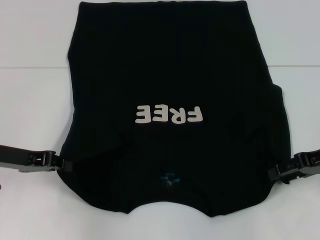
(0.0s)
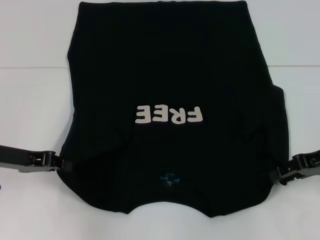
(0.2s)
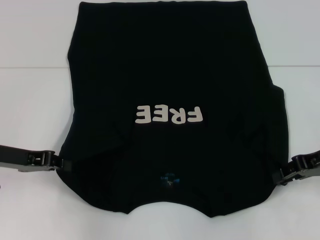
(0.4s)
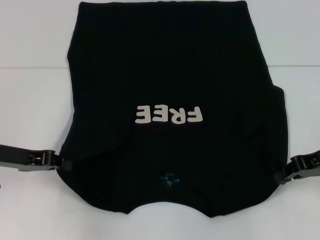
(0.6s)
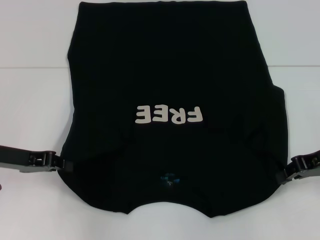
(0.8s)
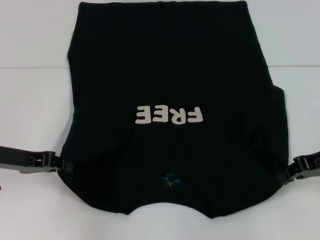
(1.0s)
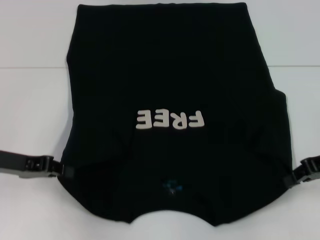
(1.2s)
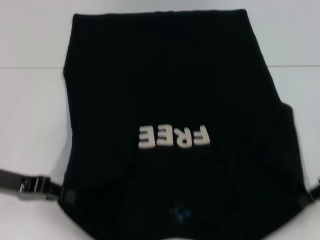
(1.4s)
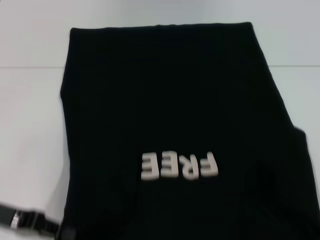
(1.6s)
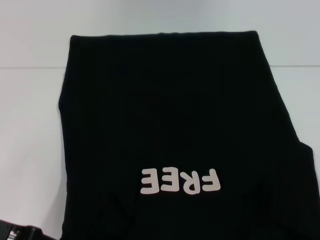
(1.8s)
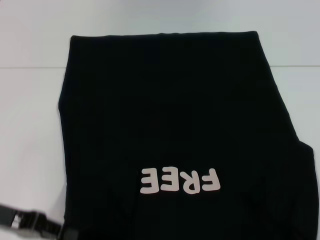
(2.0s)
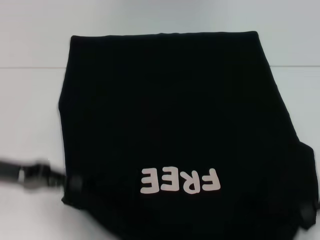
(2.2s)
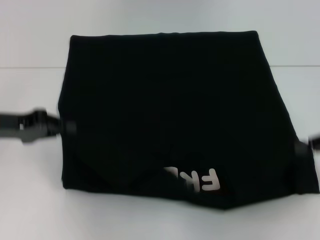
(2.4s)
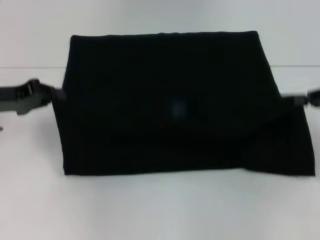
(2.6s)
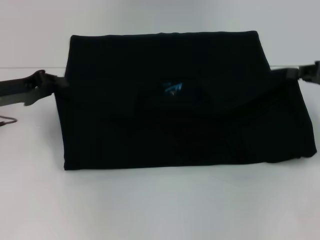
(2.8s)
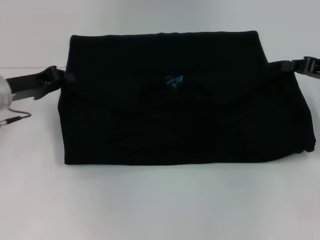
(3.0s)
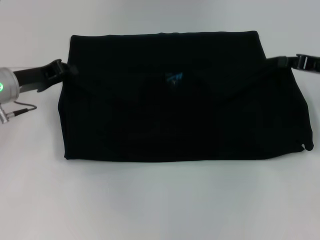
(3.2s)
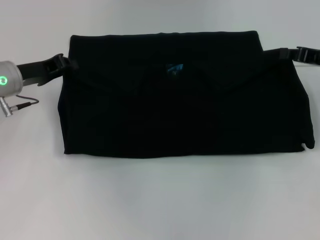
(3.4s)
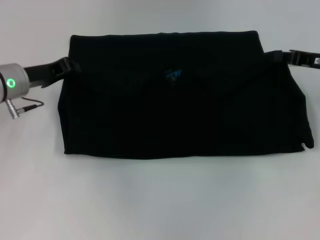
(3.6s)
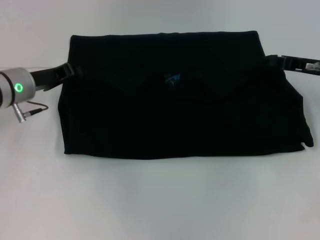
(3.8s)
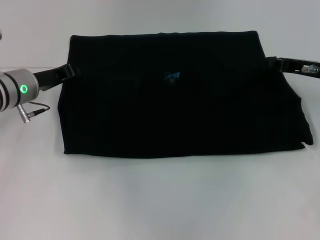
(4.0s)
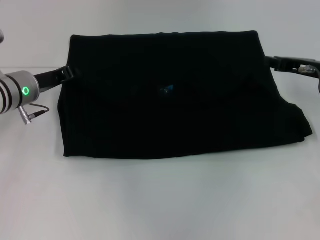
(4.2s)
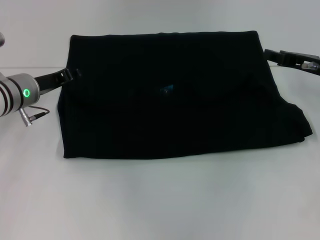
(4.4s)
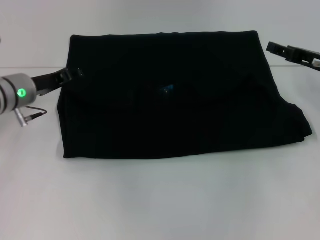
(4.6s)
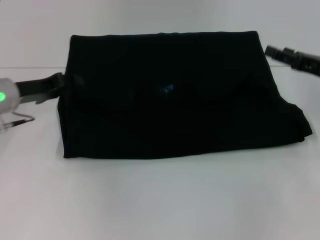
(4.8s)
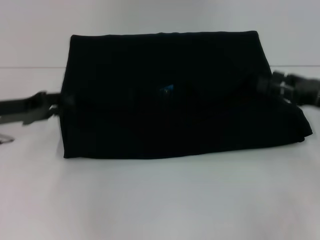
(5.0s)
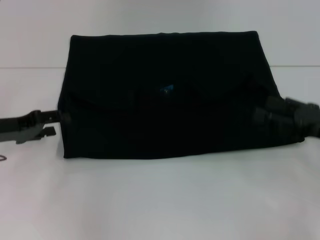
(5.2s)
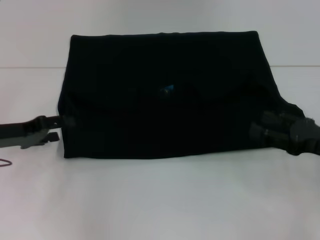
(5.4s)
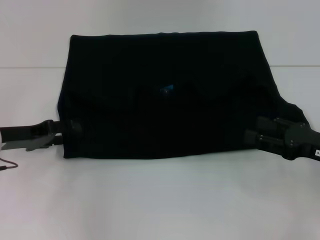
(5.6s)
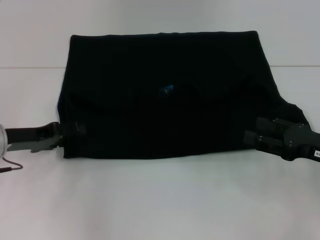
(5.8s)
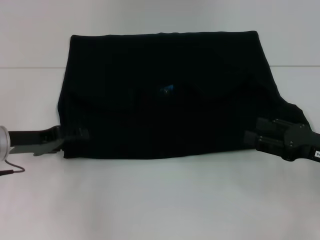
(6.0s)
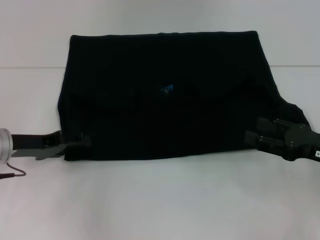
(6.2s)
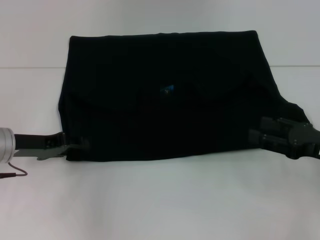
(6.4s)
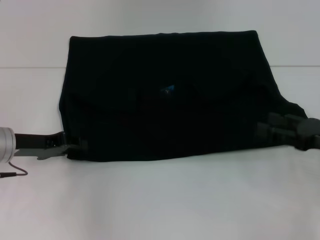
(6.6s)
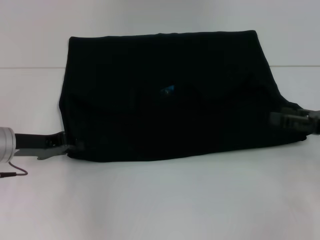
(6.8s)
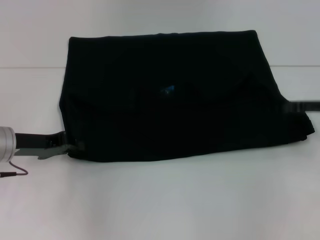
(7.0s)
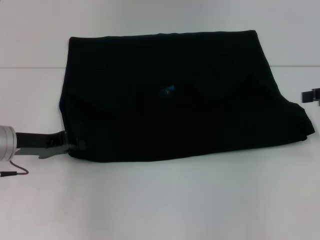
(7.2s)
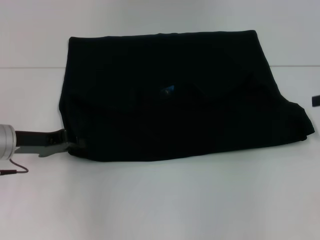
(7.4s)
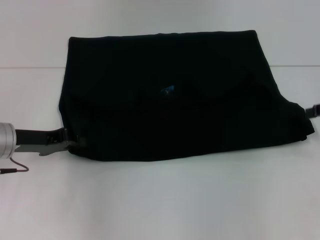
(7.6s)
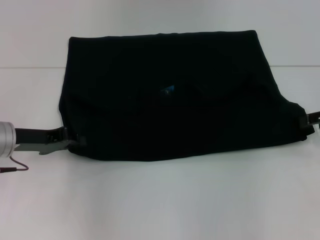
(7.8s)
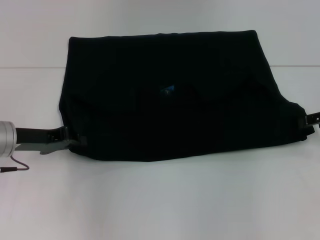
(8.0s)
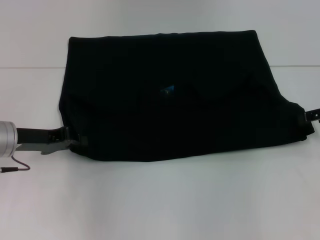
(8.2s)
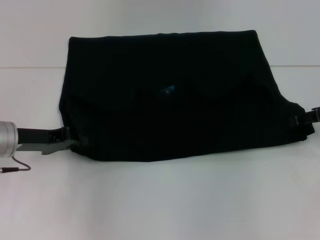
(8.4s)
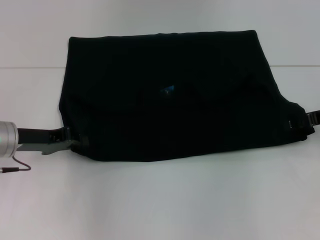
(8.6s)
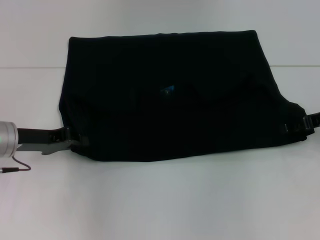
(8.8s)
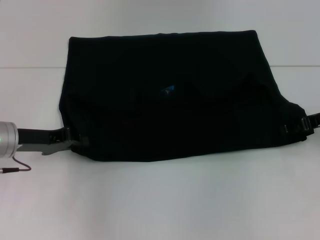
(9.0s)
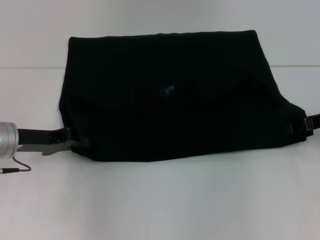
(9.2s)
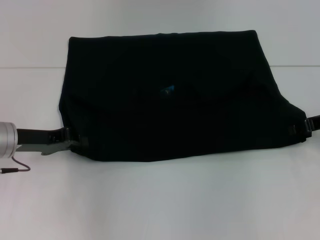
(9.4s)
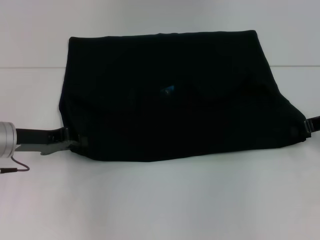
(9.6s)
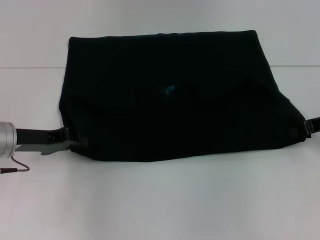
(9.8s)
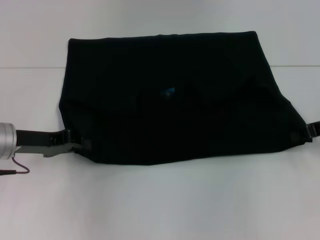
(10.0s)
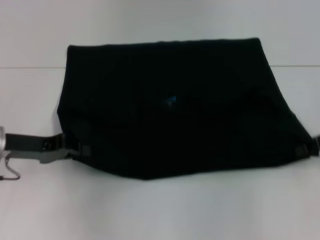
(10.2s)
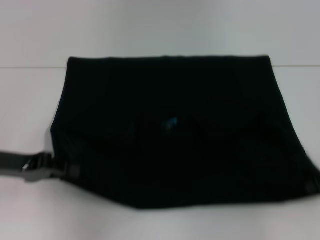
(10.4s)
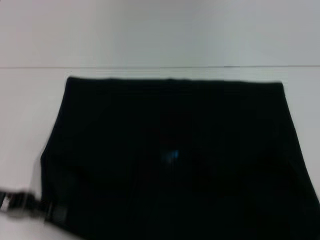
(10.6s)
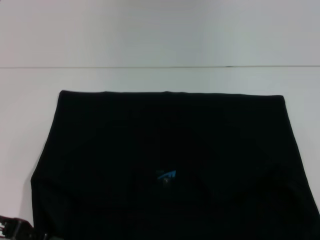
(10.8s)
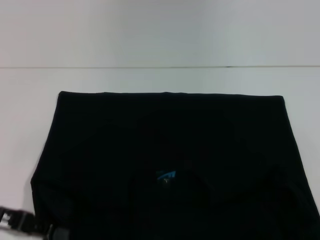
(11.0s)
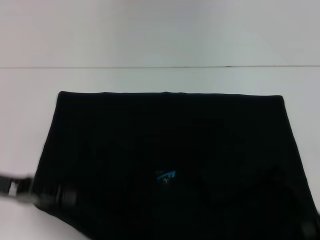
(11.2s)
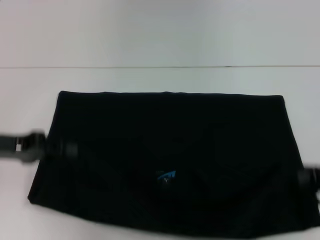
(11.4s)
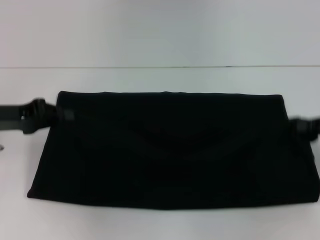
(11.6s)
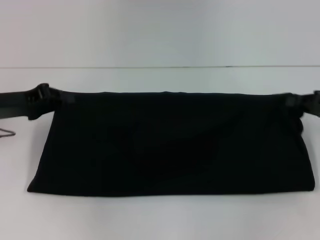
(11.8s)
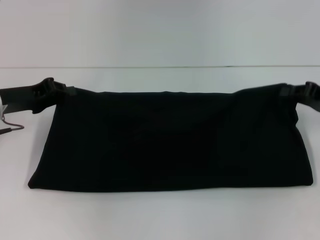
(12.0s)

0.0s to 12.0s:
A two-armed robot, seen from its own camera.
Step, 1.0s to 4.6s: Fold the clothes with your left hand.
Step, 1.0s to 4.6s: Fold the clothes with your right hand.
Step, 4.8s to 11.0s: Pull the clothes with your left hand.
Step, 4.8s to 11.0s: Pull the clothes with your right hand.
0.0s to 1.6s: The two grippers go about 5 cm backward. The right gripper closes.
1.6s to 3.0s: The grippers both shift forward by approximately 10 cm.
3.0s to 4.4s: The left gripper changes place by approximately 5 cm. The right gripper moves about 5 cm.
4.4s to 6.0s: The left gripper goes about 5 cm backward, and opens; the right gripper moves backward, some 15 cm, and opens up.
6.0s to 7.6s: The right gripper is displaced upward, forward and to the right by about 15 cm. Meanwhile the left gripper closes up.
9.0s to 10.4s: The right gripper goes roughly 5 cm backward, and closes. Meanwhile the left gripper ends up some 5 cm from where it was.
10.4s to 12.0s: The left gripper is displaced forward by approximately 5 cm.

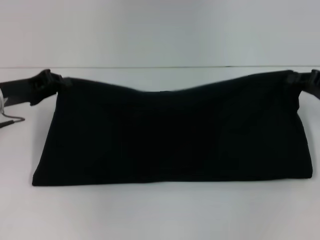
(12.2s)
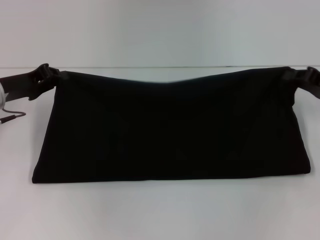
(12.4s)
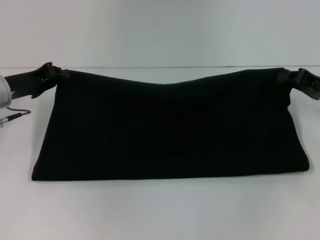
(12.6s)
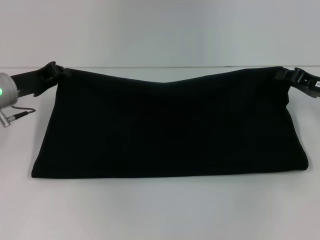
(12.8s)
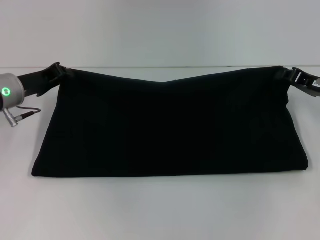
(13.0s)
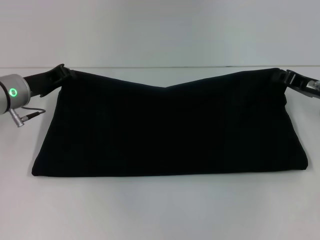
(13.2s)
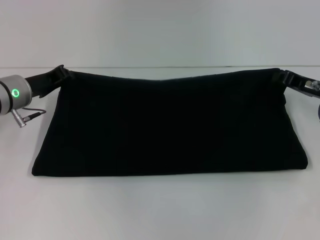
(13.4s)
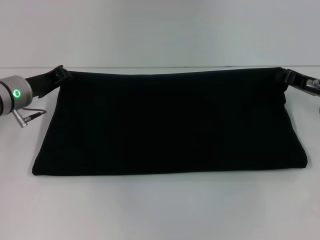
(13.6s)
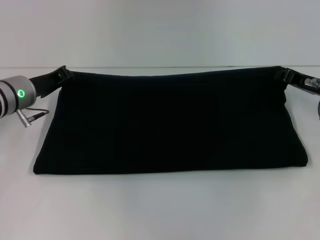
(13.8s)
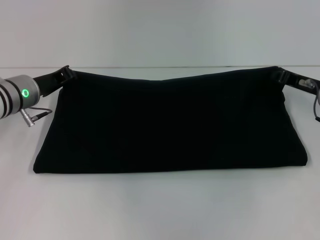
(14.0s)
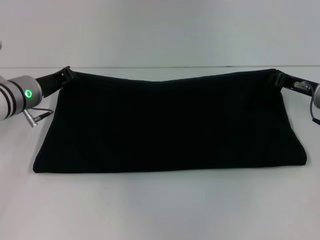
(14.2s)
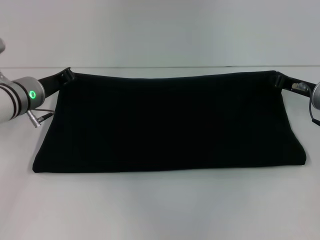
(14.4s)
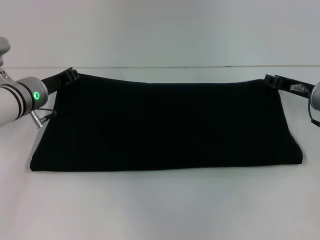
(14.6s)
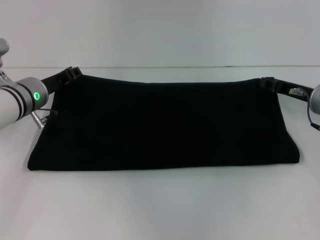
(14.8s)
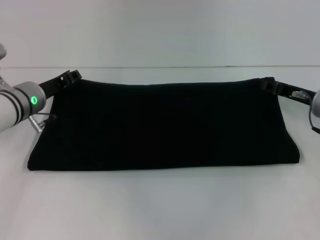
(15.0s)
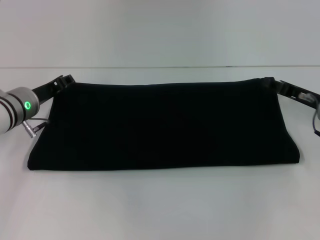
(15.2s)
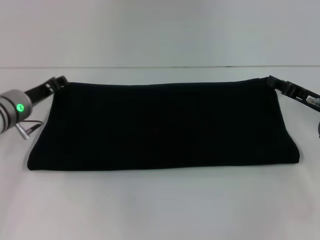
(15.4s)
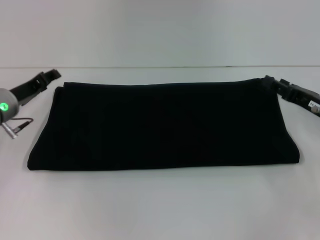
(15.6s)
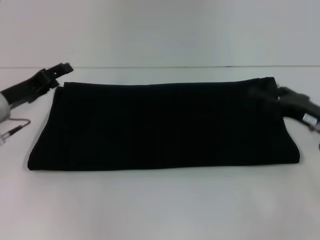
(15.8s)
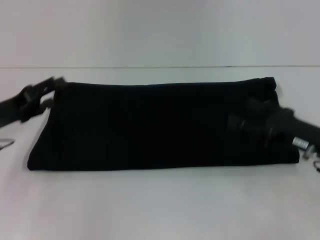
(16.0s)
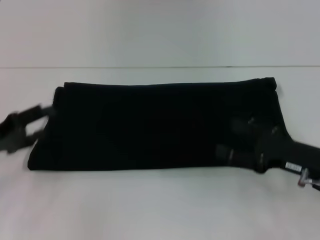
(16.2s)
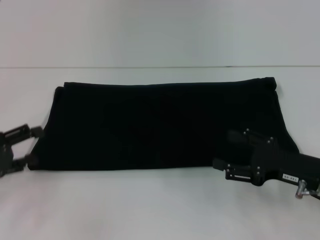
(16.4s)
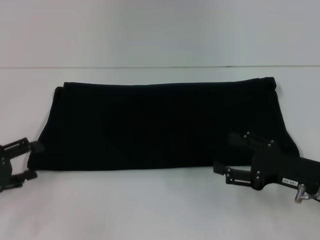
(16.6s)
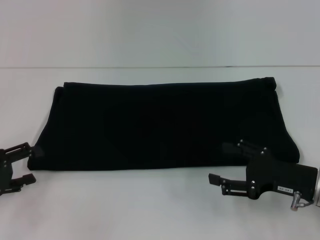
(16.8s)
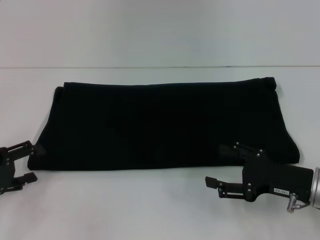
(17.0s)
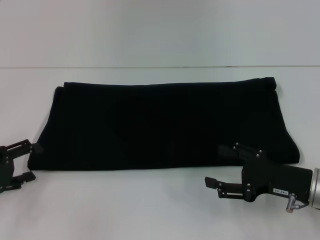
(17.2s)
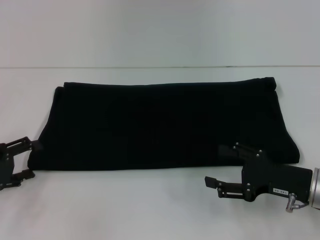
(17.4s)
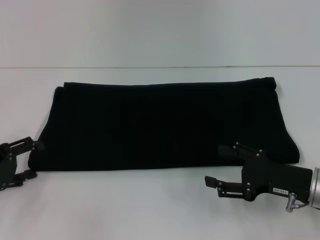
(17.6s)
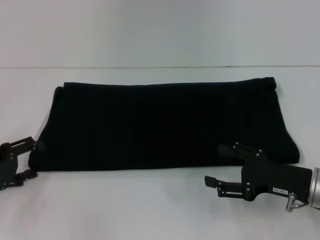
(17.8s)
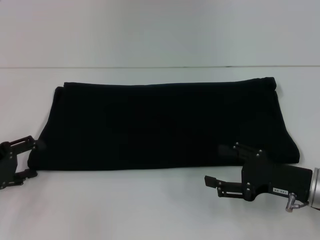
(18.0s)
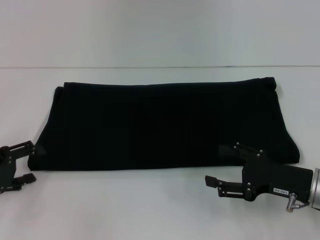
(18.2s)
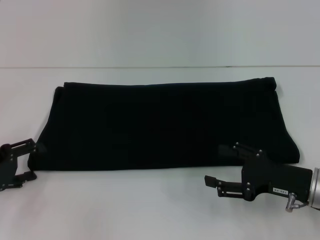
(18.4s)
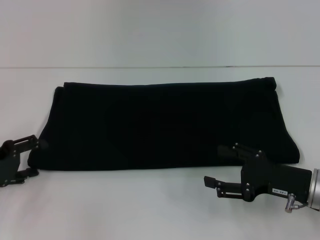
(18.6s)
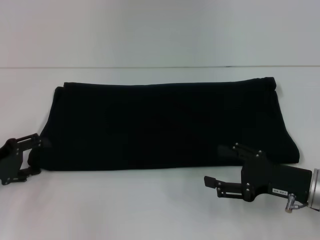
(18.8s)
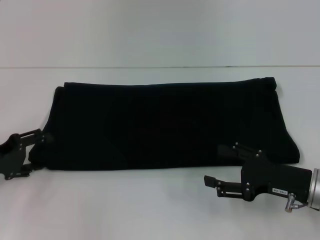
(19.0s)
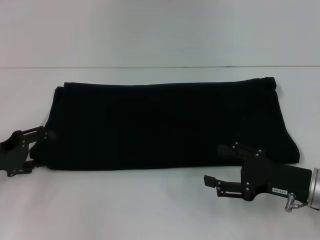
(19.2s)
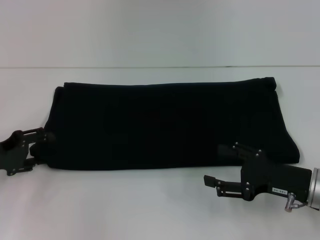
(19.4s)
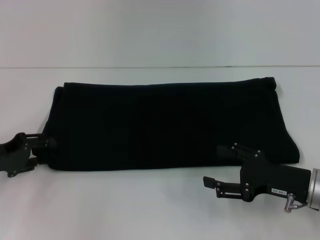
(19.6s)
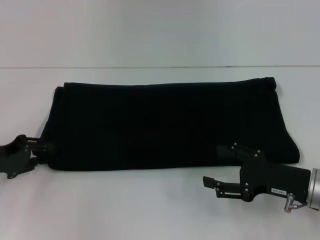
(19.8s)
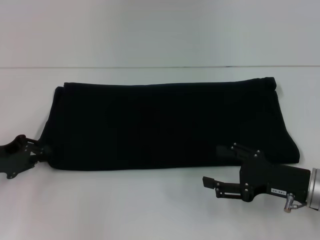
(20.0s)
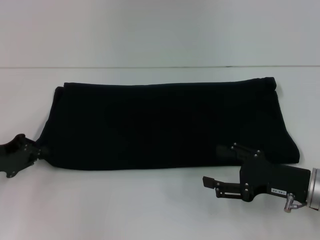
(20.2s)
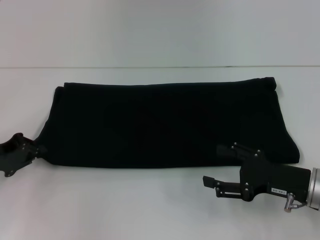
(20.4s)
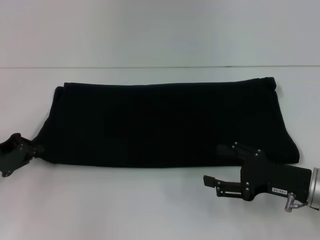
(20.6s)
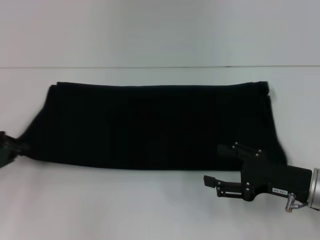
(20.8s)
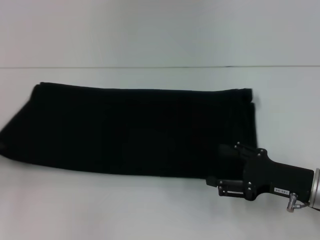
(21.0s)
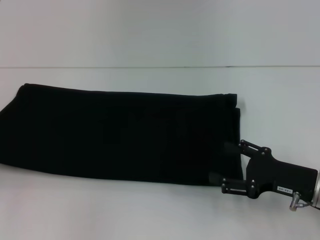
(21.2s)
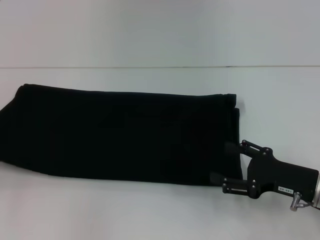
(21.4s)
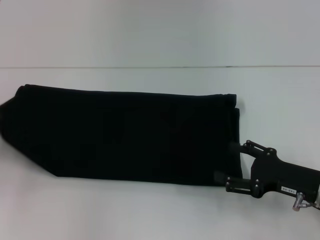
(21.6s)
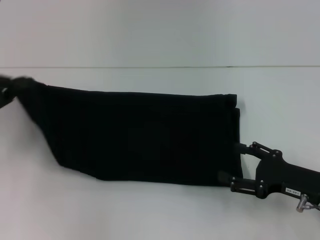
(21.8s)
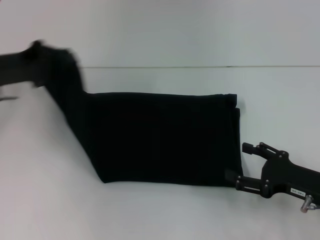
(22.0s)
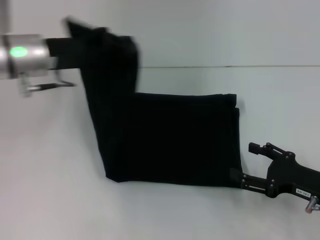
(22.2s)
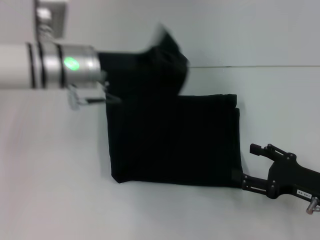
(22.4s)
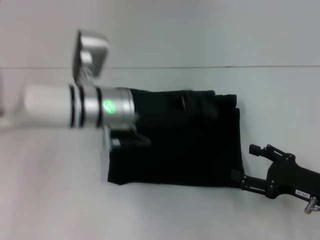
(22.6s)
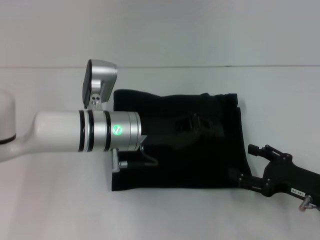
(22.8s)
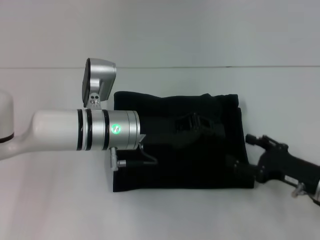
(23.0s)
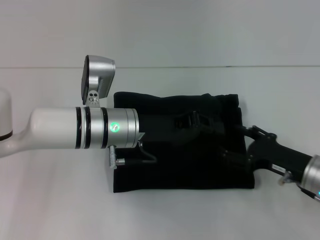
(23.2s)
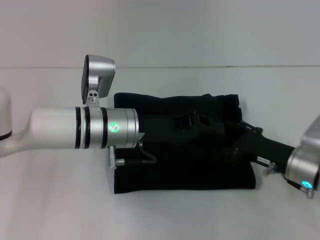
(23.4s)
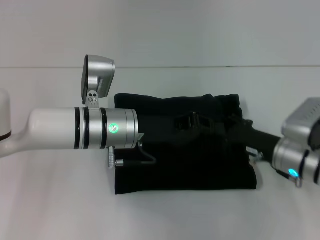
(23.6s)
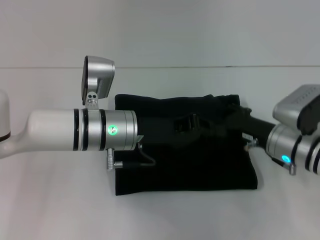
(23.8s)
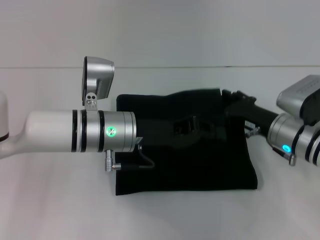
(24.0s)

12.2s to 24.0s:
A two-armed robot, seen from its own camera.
Step, 12.2s to 15.0s: Fold the clothes with your right hand.
12.2s to 13.6s: The left gripper shifts by about 5 cm. Meanwhile the right gripper ends up roughly 5 cm from where it was.
13.6s to 15.2s: The left gripper opens up; the right gripper opens.
15.2s to 16.6s: The right gripper shifts about 10 cm backward, and opens; the left gripper is displaced backward and to the left by about 20 cm, and opens its fingers.
16.6s to 19.6s: There are only small adjustments of the grippers.
19.6s to 21.0s: The left gripper heads to the left, covering roughly 5 cm, and closes.
21.0s to 22.6s: The left gripper shifts roughly 30 cm to the right.
22.6s to 24.0s: The right gripper shifts some 15 cm forward and to the left.
